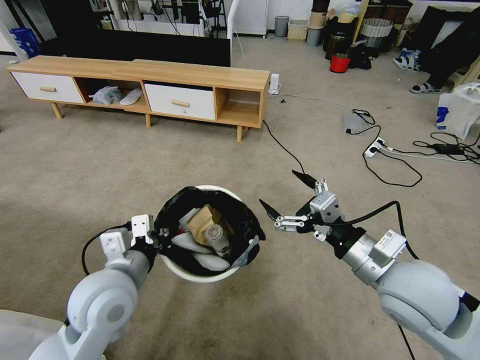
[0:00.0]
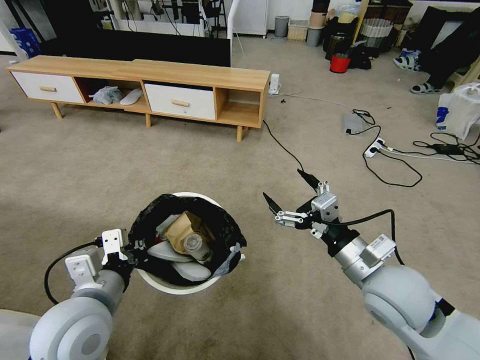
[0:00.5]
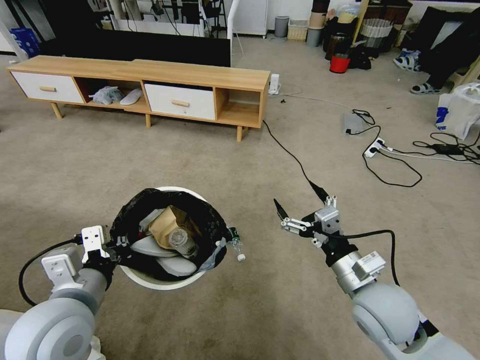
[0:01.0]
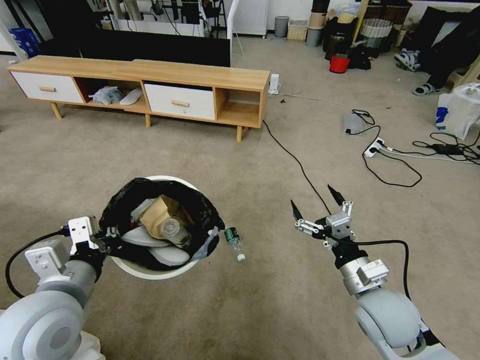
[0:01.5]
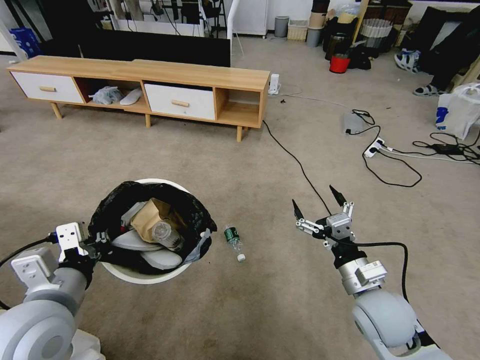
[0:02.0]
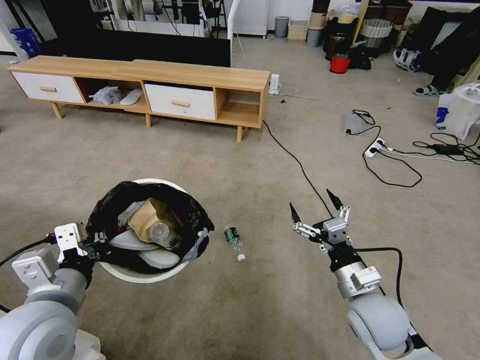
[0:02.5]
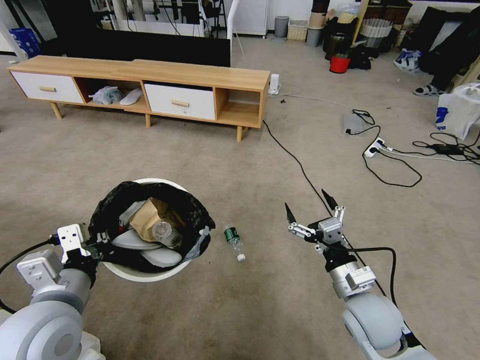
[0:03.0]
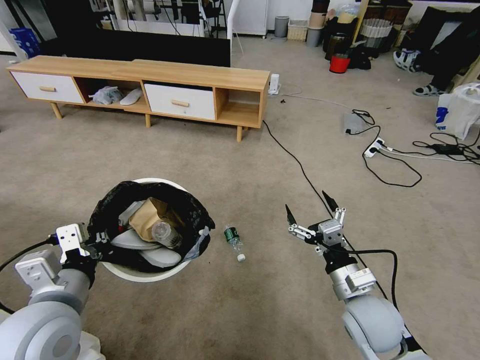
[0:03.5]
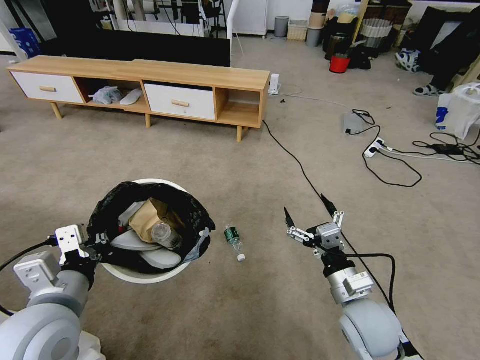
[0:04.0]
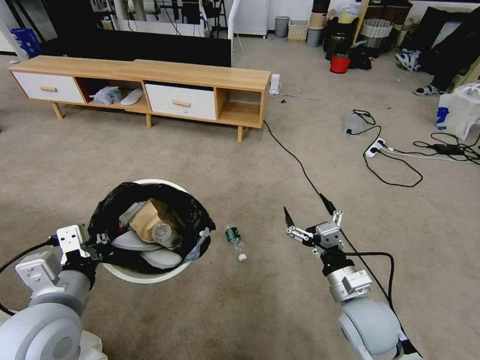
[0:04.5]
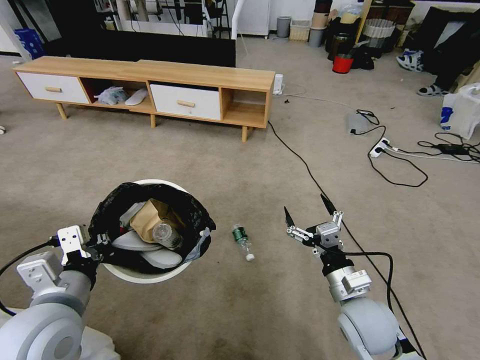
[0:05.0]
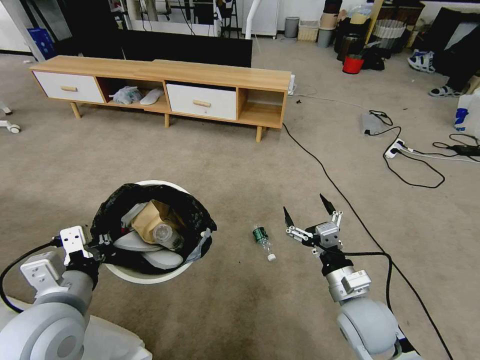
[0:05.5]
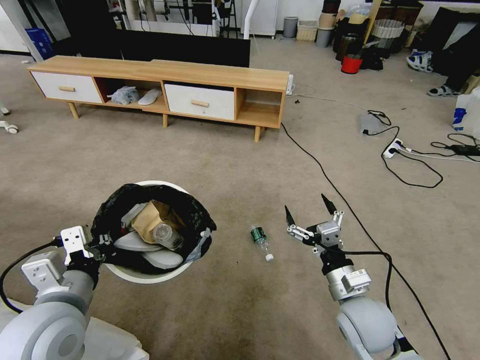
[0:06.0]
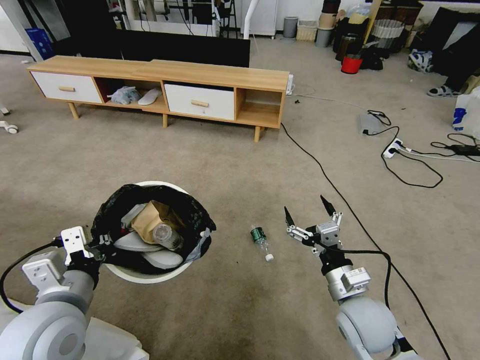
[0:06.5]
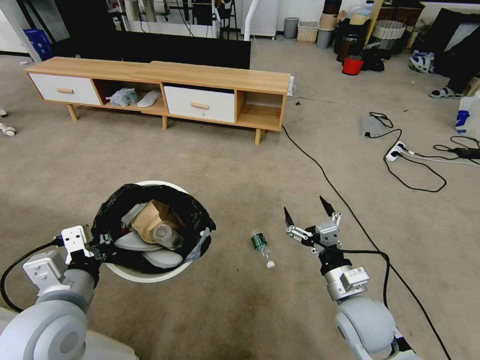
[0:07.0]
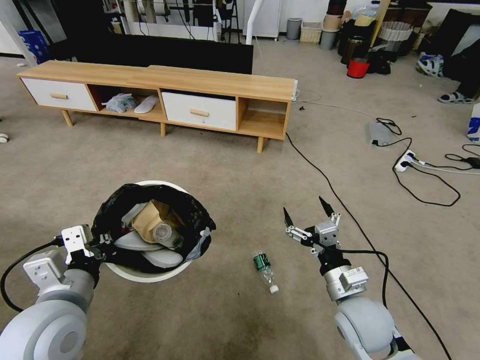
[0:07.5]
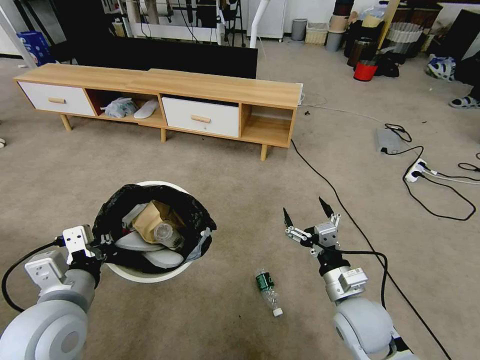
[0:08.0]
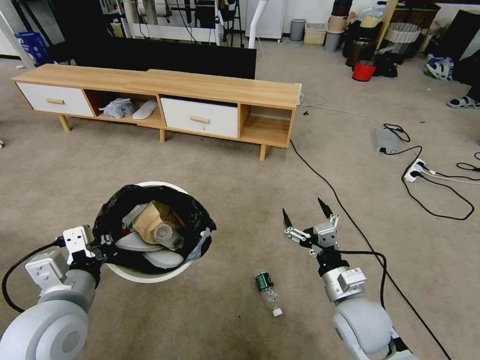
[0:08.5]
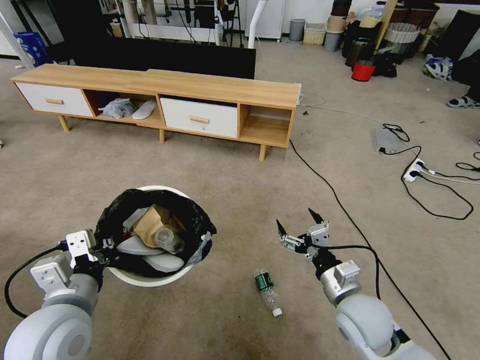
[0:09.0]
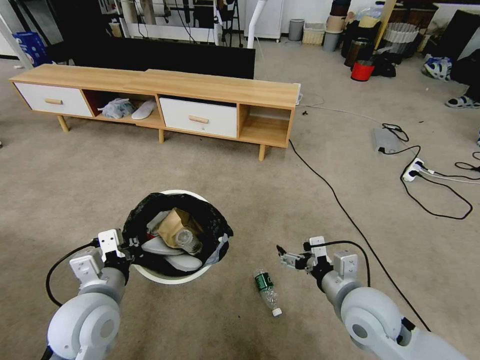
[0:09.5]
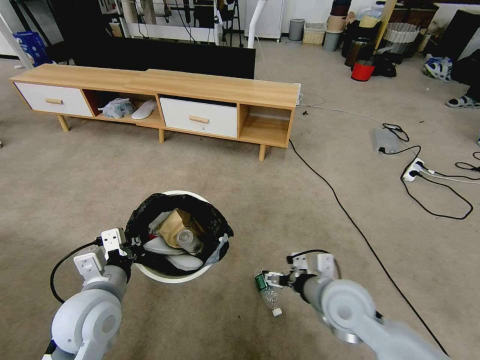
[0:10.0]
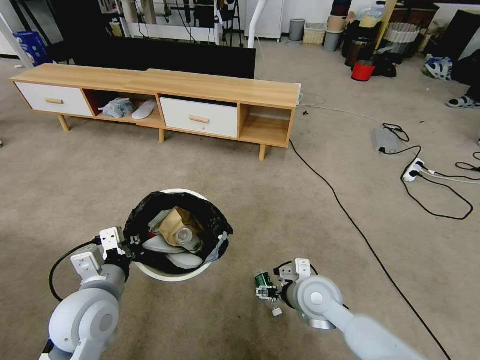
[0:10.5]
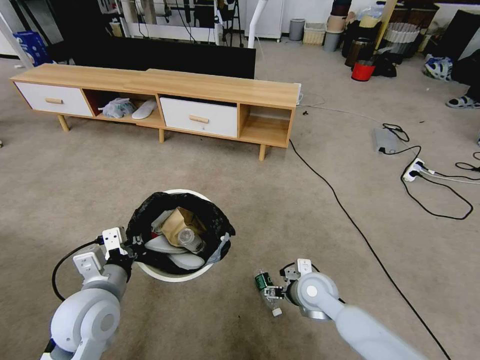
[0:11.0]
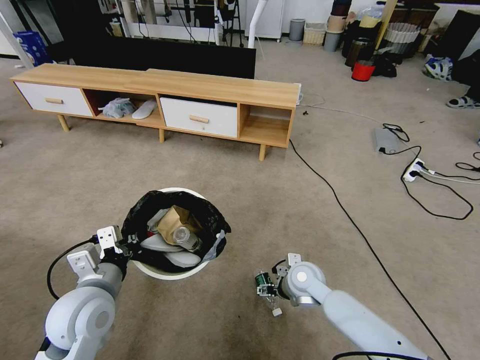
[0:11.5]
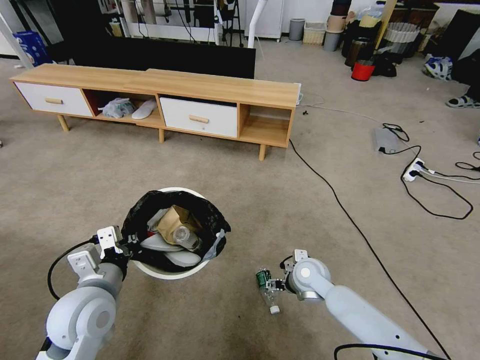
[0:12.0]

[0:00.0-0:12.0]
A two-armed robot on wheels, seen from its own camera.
Task of the whole recording: Pick up the trash bin and place the garbage on the floor into it.
0:00.0 to 0:02.0: The right gripper heads downward, covering approximately 10 cm. The left gripper goes approximately 10 cm to the left and backward.
0:02.0 to 0:04.0: There are only small adjustments of the grippers.
0:08.0 to 0:10.0: The left gripper changes place by roughly 5 cm.
0:10.0 to 0:12.0: The right gripper goes roughly 15 cm downward and forward.

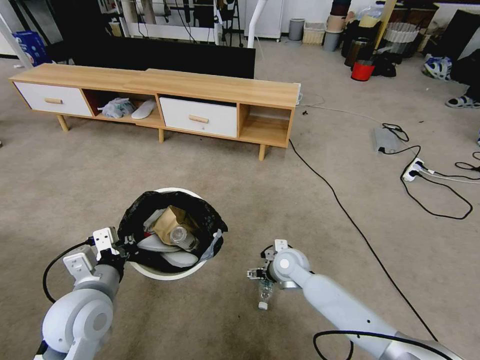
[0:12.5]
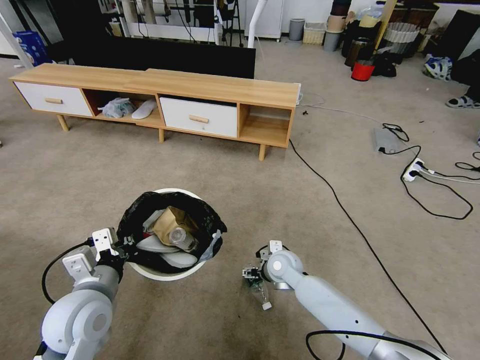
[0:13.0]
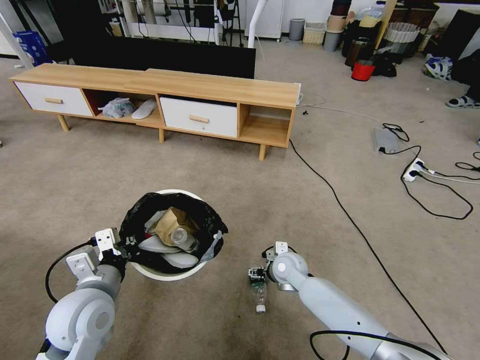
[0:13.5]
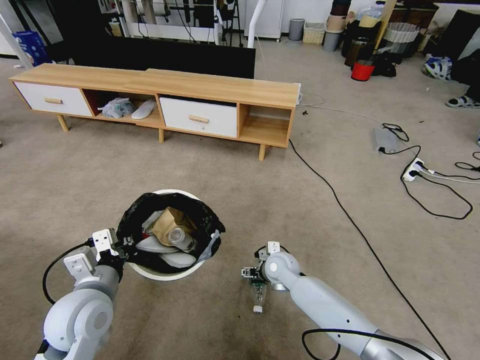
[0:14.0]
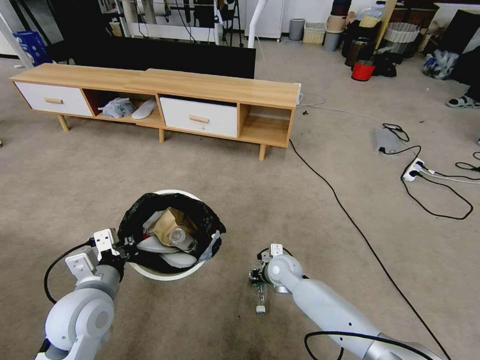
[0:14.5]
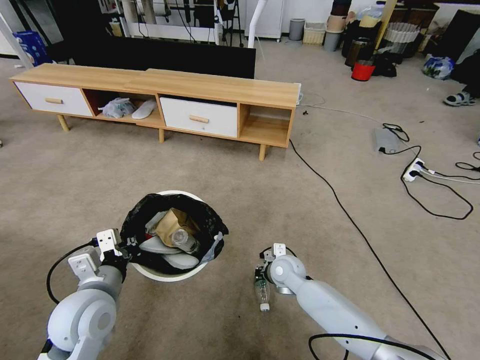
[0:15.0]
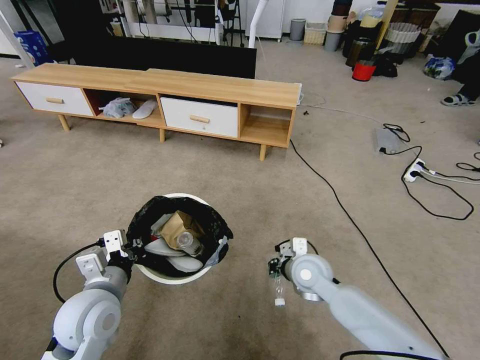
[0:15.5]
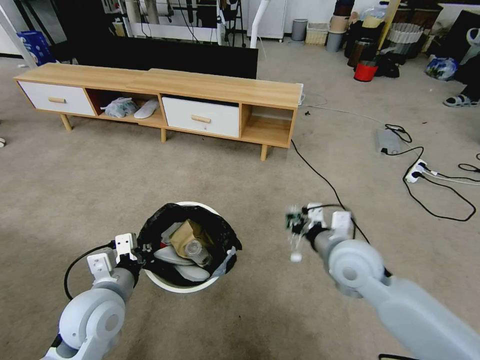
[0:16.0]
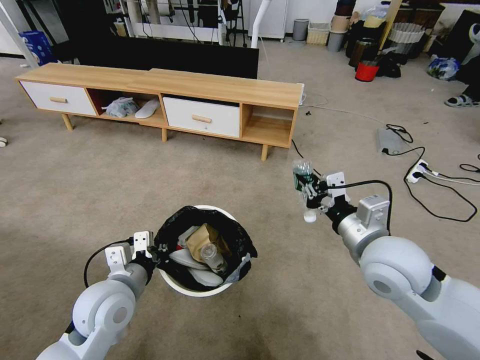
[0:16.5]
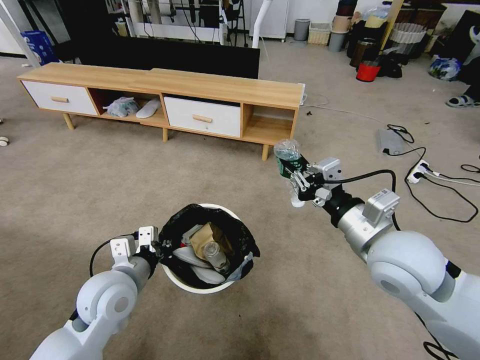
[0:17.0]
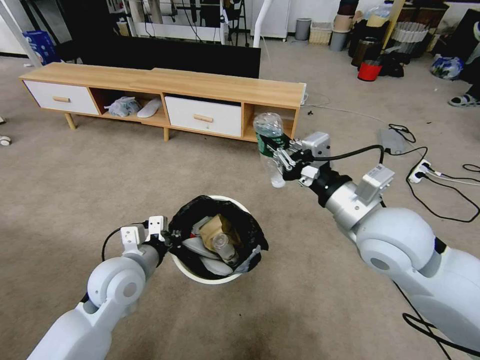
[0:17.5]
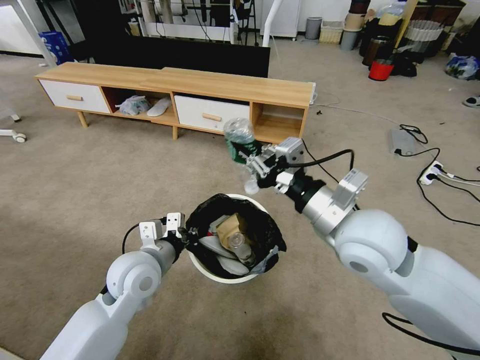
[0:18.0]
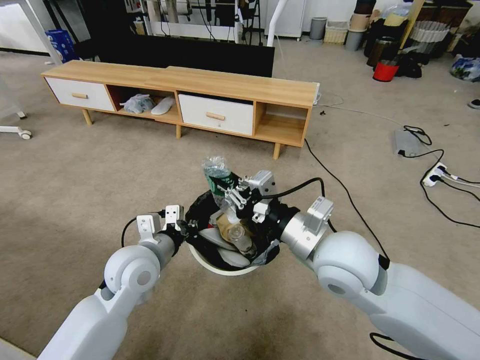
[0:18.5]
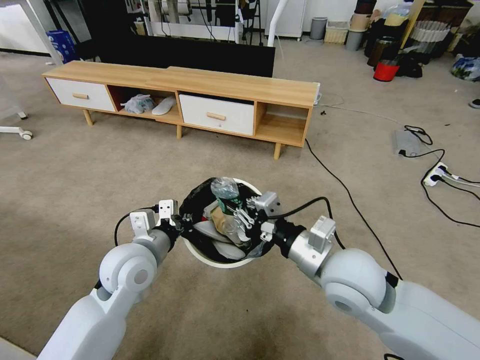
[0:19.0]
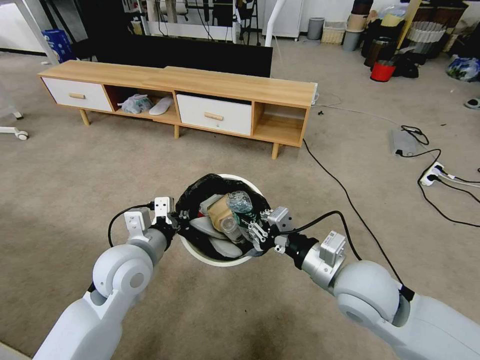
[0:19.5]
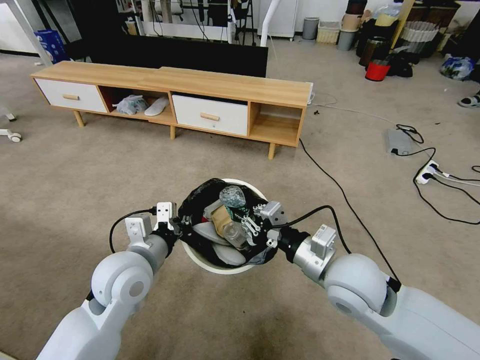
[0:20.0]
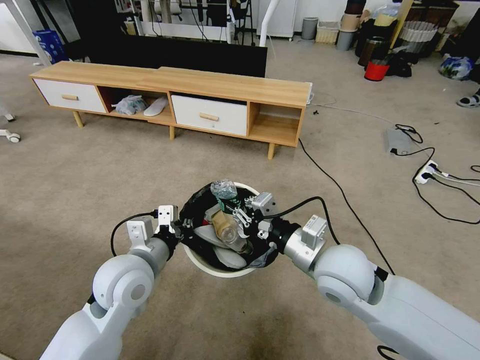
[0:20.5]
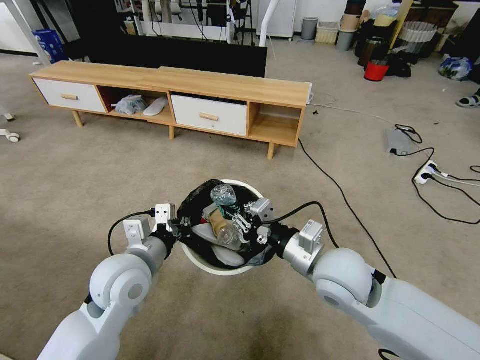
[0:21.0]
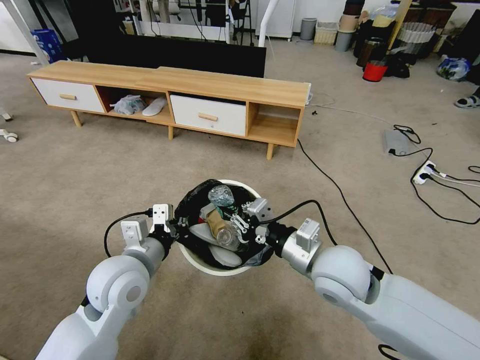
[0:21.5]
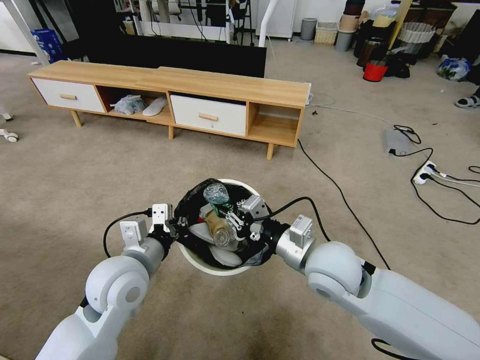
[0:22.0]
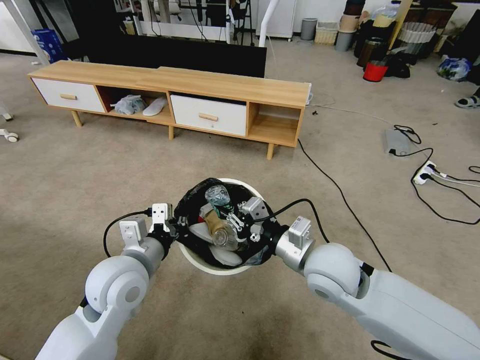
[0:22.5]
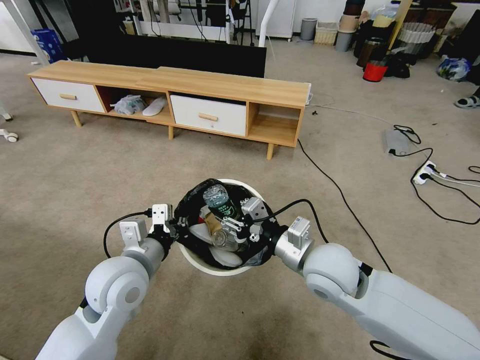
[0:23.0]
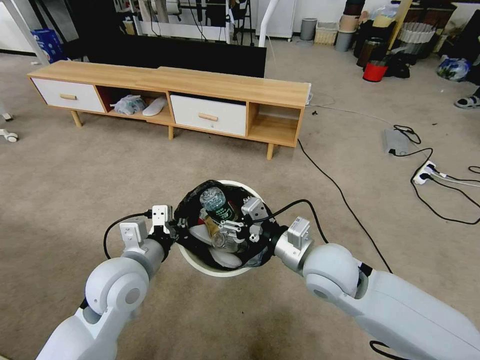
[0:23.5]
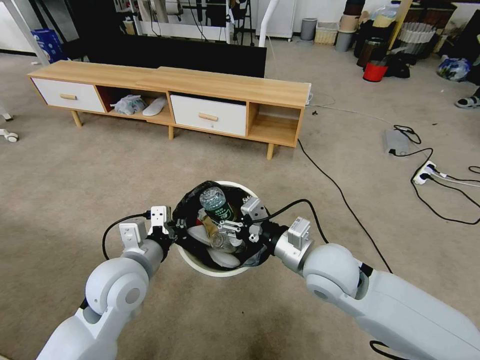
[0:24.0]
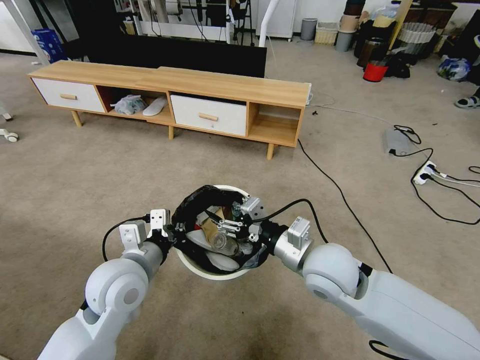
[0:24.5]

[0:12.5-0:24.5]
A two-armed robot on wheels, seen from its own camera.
Task of the whole recording: Pick up the trash bin and place the garbage on the floor into it.
0:12.5 to 0:14.5: The right gripper closes up.
0:14.5 to 0:16.5: The right gripper moves upward, backward and to the right, roughly 30 cm, and closes its fingers.
0:16.5 to 0:18.5: The left gripper moves forward, some 5 cm. Meanwhile the right gripper heads to the left, covering some 10 cm.
0:20.5 to 0:22.5: There are only small adjustments of the grippers.
0:22.5 to 0:24.5: The right gripper opens its fingers.

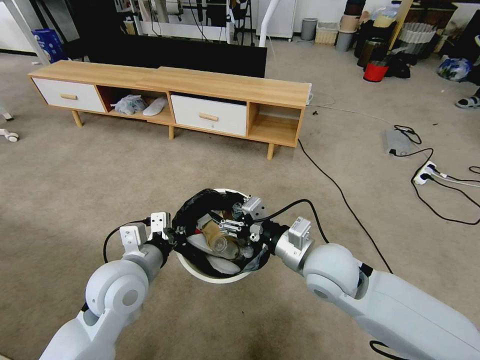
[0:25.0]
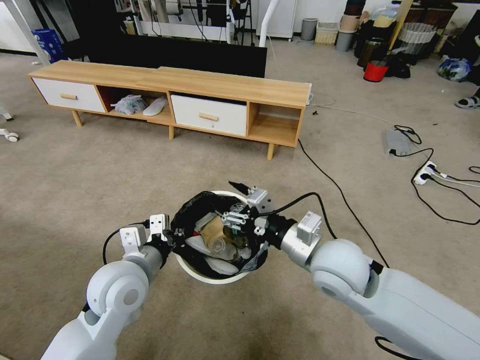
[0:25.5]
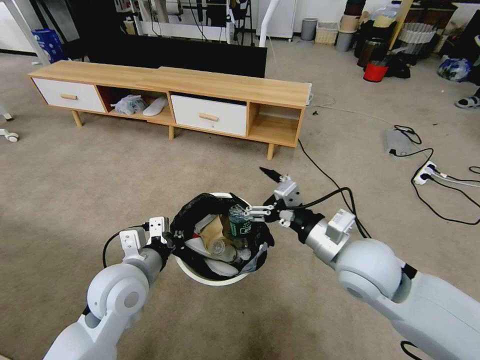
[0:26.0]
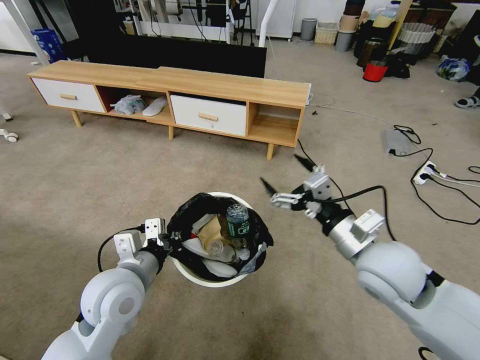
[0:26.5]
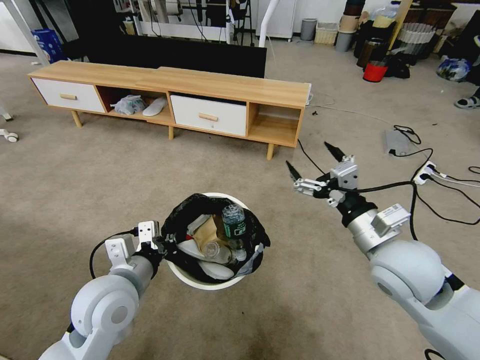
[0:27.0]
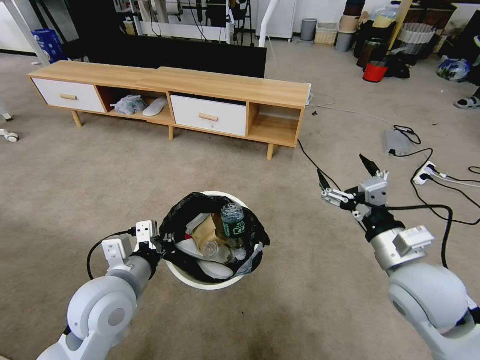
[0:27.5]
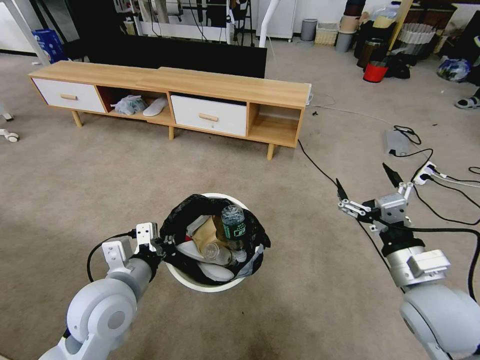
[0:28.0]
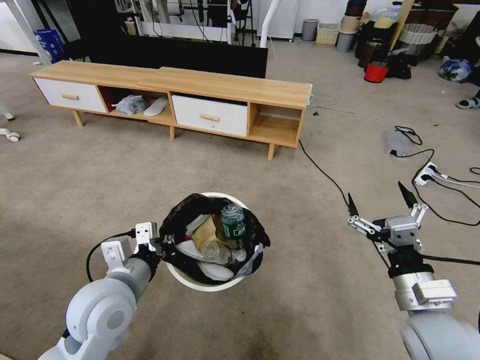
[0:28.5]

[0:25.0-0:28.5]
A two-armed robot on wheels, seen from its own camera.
Task of the whole recording: Pick up the trash bin and place the garbage on the floor into it.
0:25.0 to 0:27.0: The right gripper heads to the right, covering about 10 cm.
0:27.0 to 0:28.5: The right gripper moves backward and downward, roughly 10 cm.
